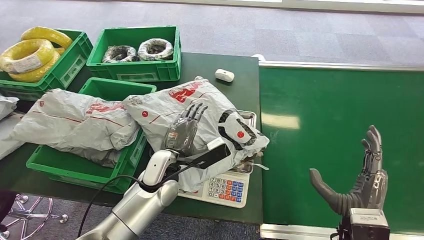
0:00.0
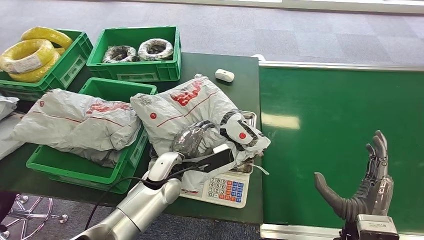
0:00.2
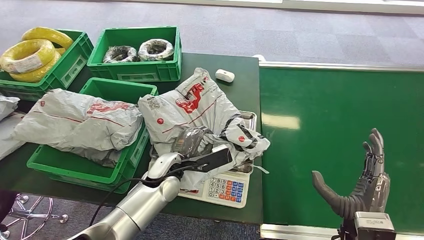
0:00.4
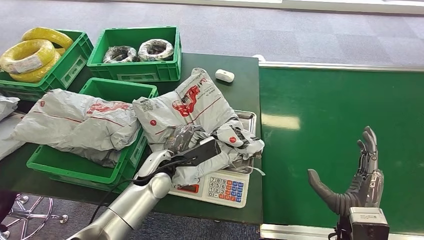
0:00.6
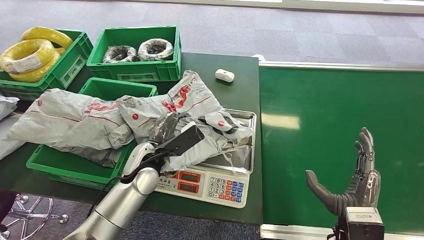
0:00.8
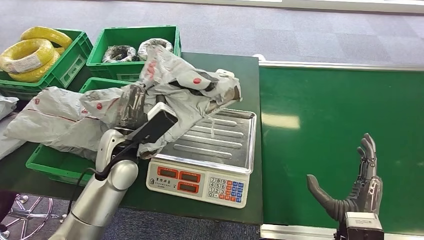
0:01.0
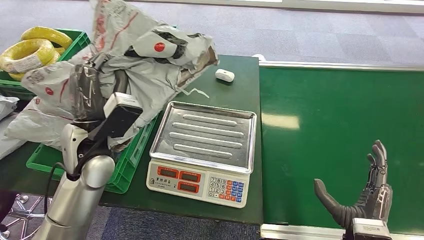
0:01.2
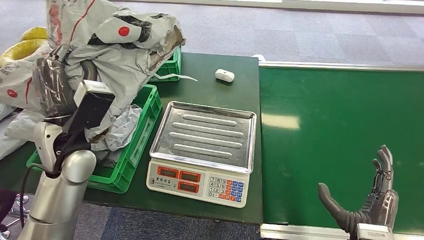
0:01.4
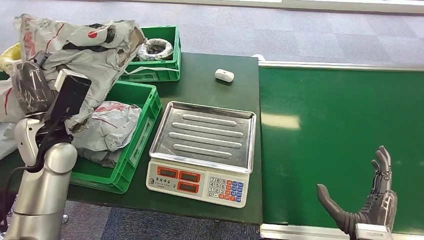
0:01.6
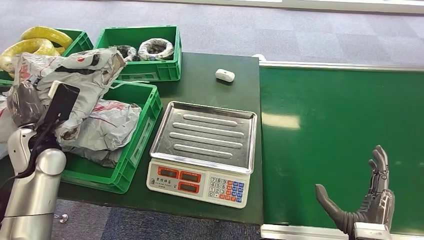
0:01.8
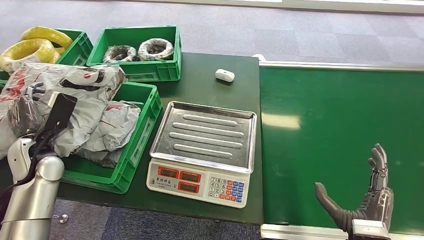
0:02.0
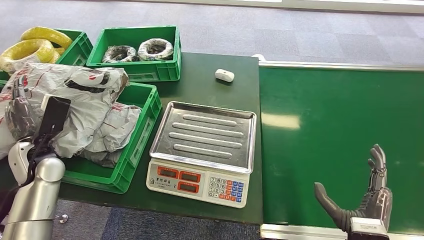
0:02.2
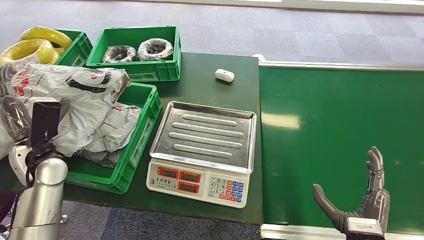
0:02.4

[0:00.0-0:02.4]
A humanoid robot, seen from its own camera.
Step, 0:00.0 to 0:01.0: Pick up the package from the inbound machine.
Step, 0:01.2 to 0:02.4: Place the package into the parcel locker.

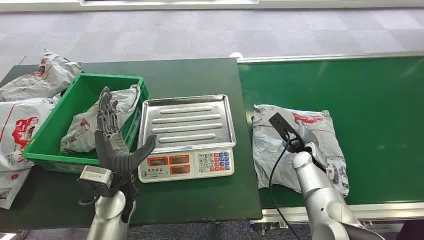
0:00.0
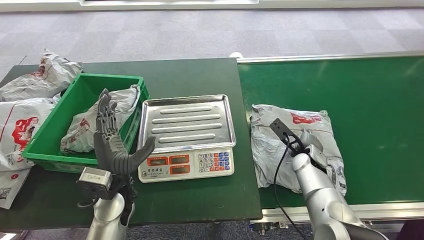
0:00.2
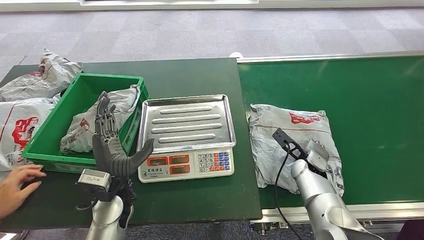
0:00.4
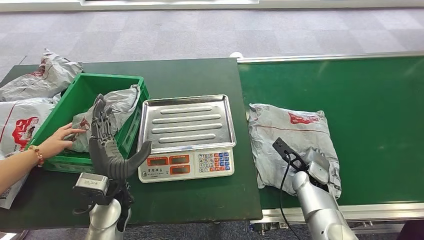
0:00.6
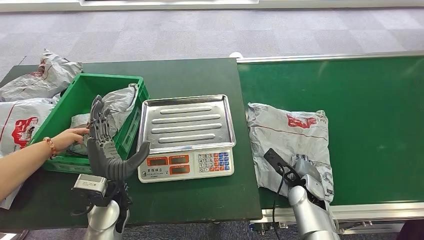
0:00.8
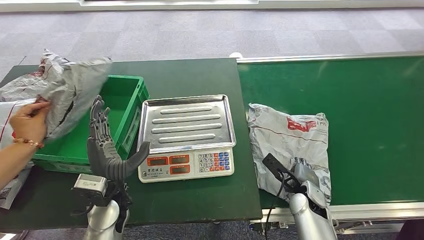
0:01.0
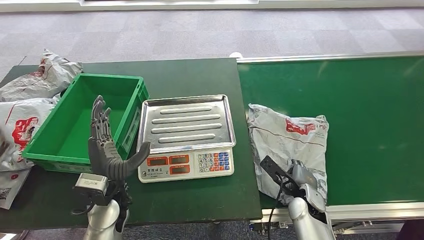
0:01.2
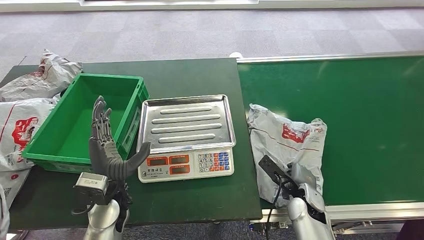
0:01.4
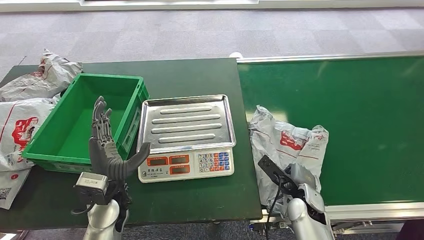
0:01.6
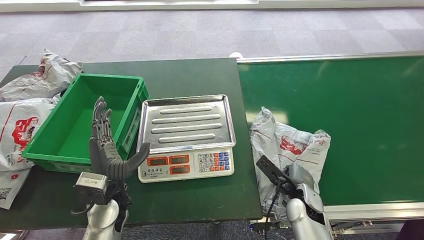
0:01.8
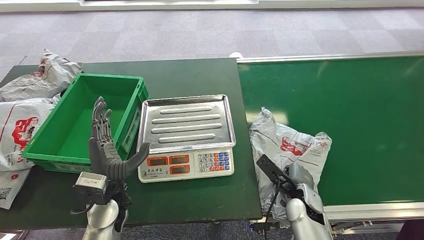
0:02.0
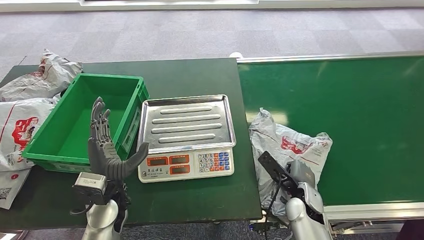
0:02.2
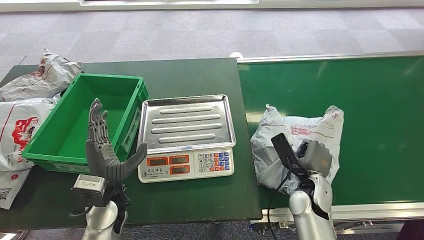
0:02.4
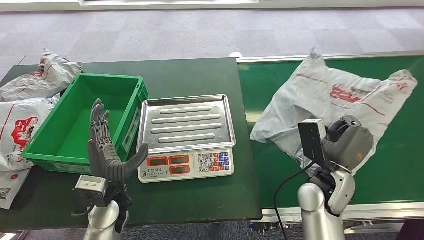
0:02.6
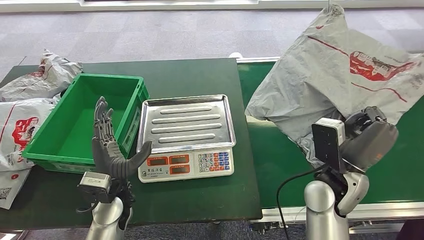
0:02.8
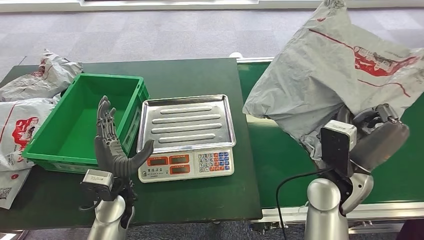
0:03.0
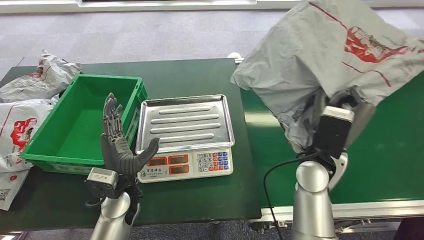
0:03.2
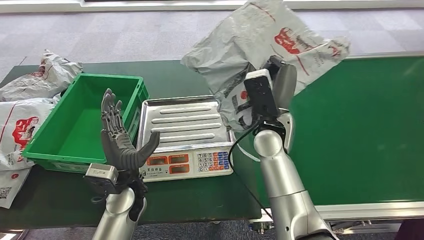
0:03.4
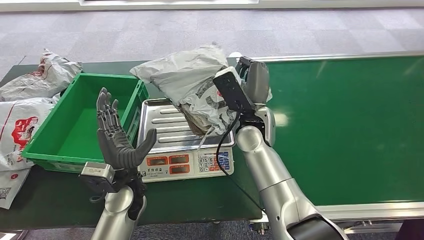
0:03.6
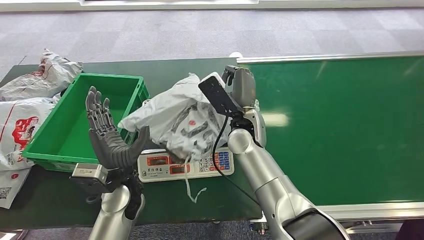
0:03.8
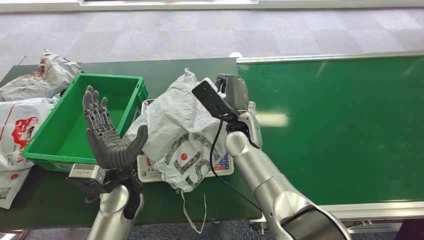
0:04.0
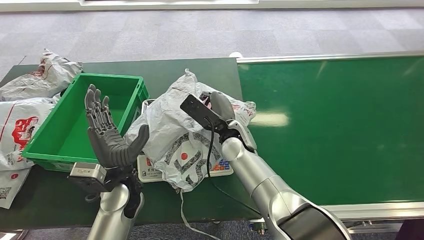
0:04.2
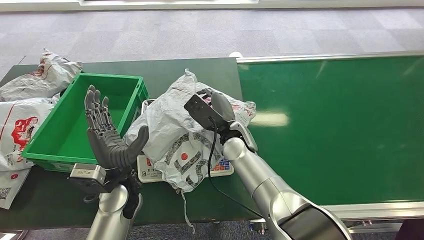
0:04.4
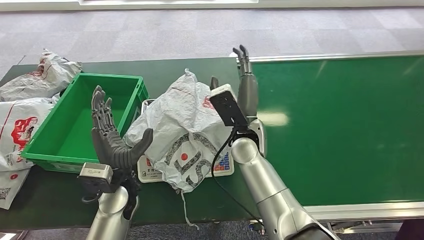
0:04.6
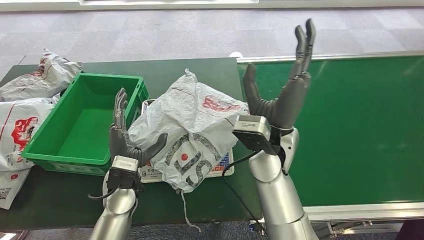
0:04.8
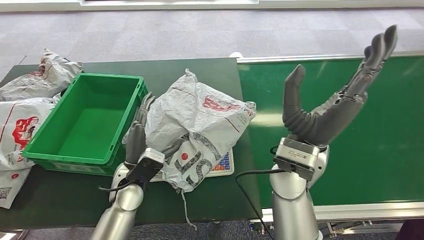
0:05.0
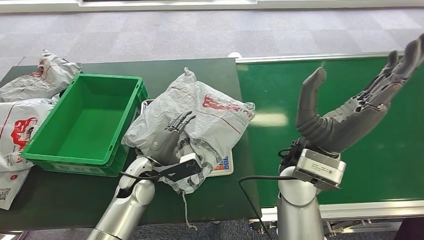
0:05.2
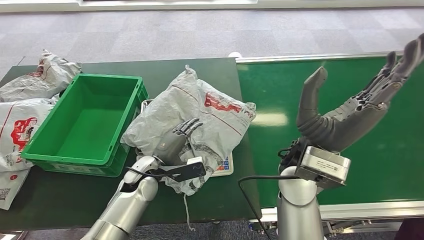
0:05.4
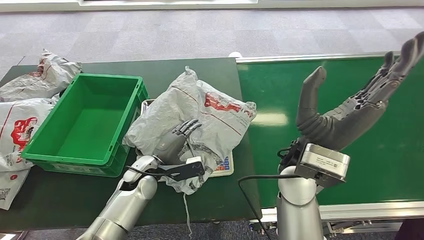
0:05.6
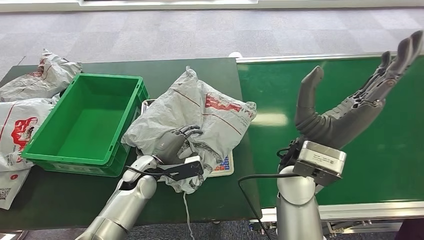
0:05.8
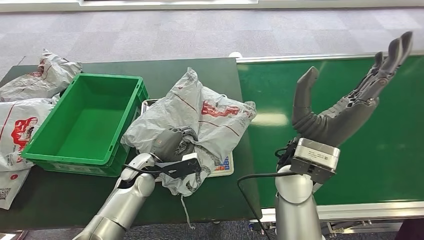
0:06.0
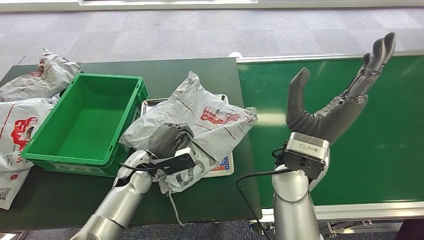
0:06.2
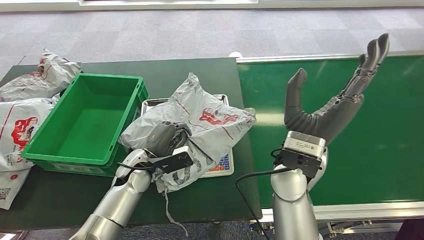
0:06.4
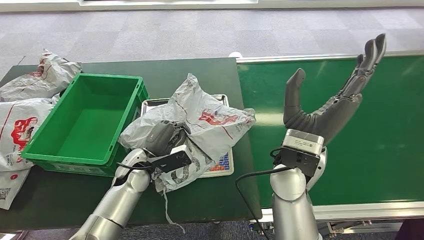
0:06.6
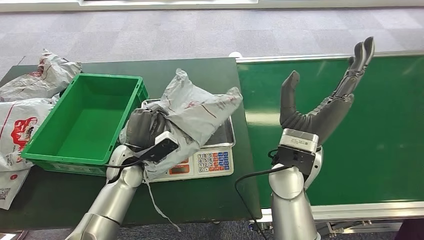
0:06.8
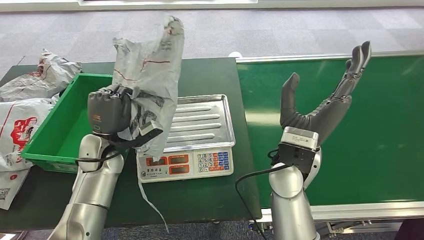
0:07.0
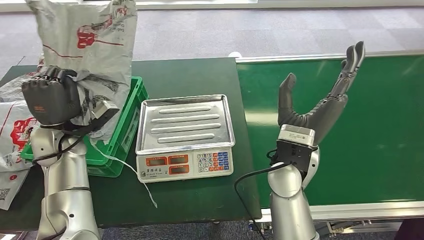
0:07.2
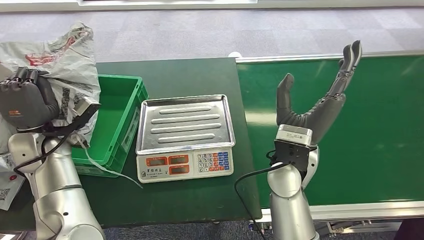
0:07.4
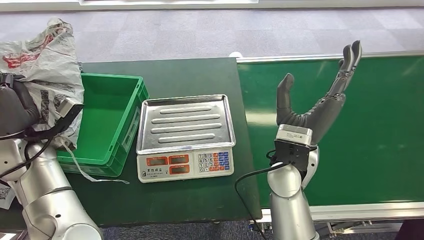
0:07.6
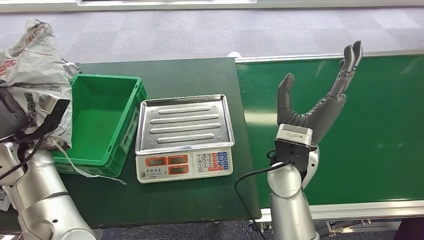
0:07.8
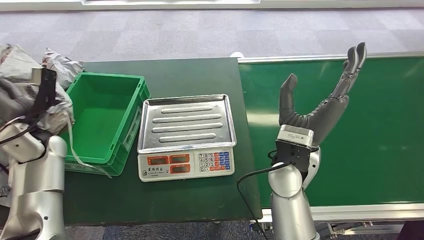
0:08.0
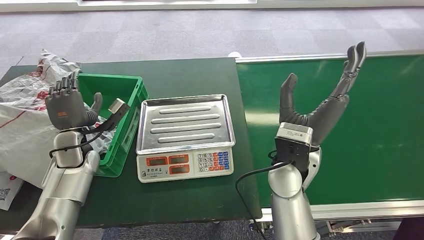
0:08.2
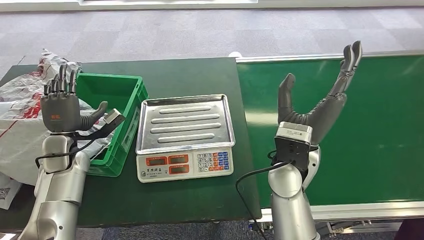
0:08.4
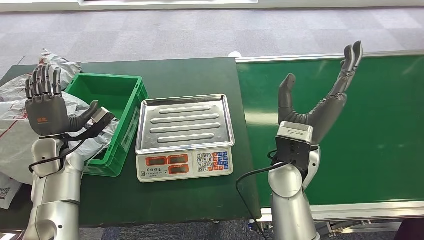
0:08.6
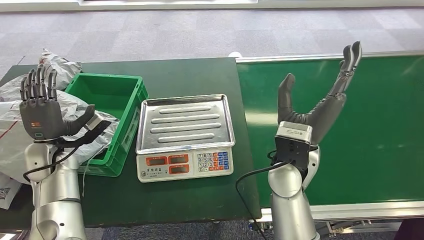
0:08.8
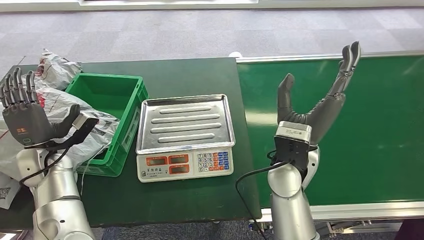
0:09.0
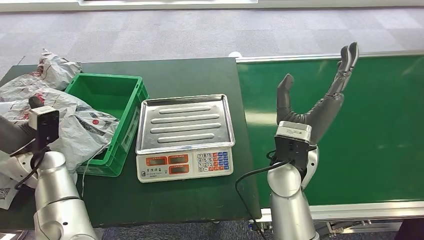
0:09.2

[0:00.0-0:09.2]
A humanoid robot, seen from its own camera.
Step, 0:00.0 to 0:02.6: Pick up the package from the conveyor belt.
Step, 0:02.8 to 0:05.0: Place the package onto the inbound machine.
Step, 0:05.2 to 0:07.6: Pick up the package from the inbound machine.
Step, 0:08.0 to 0:09.2: Place the package into the parcel locker.
0:04.6 to 0:06.2: The right hand is displaced to the right, backward and upward by some 15 cm. Meanwhile the left hand travels forward by approximately 5 cm.
0:07.6 to 0:09.2: The left hand moves about 5 cm to the right and comes back.

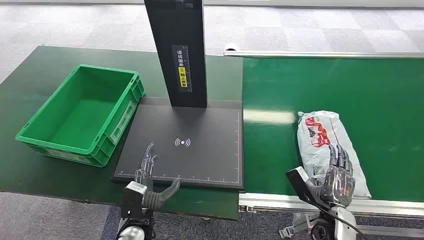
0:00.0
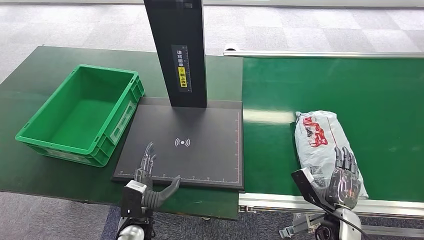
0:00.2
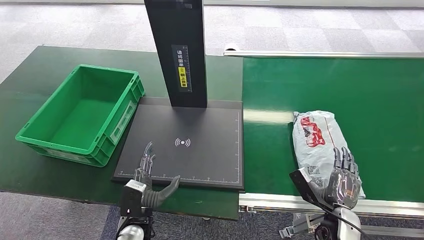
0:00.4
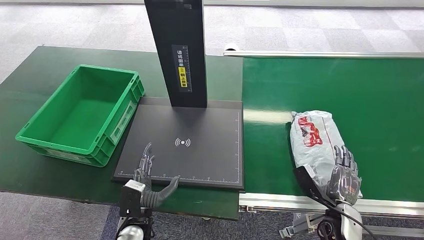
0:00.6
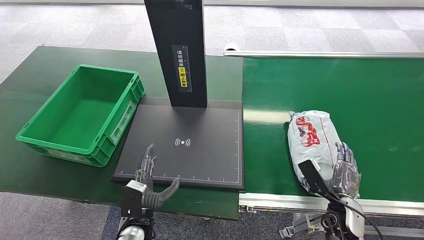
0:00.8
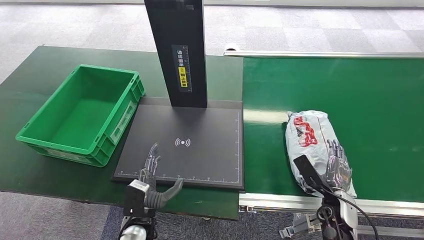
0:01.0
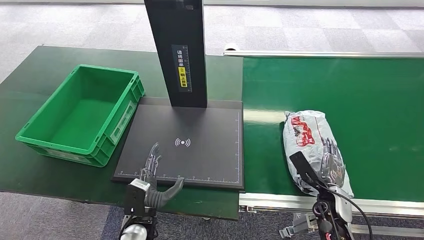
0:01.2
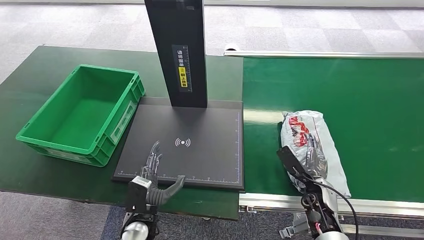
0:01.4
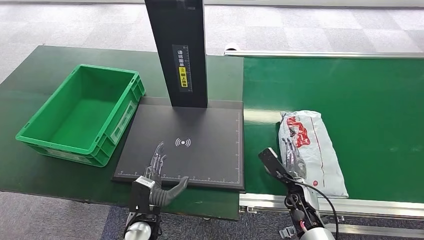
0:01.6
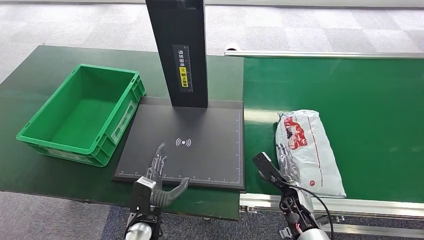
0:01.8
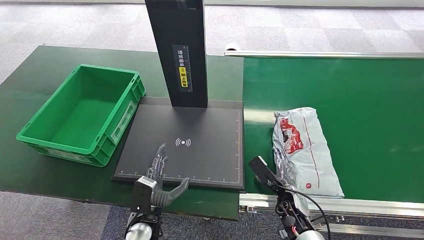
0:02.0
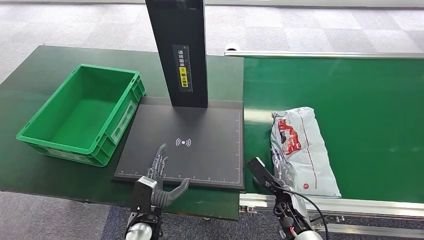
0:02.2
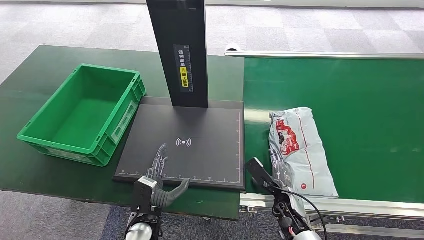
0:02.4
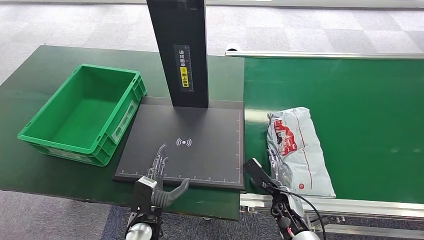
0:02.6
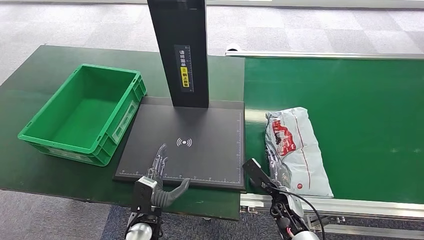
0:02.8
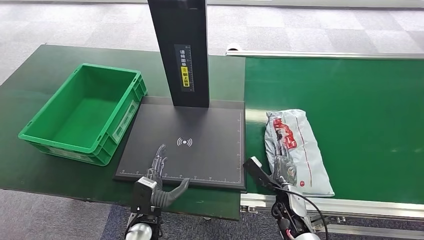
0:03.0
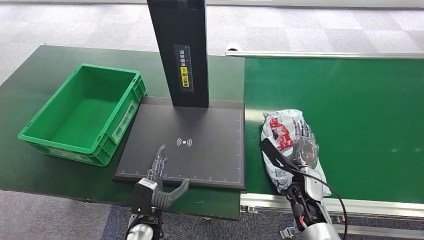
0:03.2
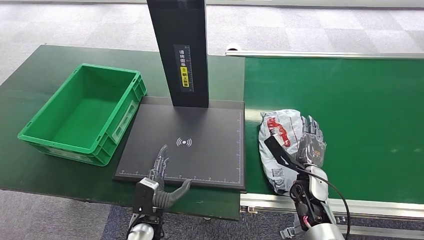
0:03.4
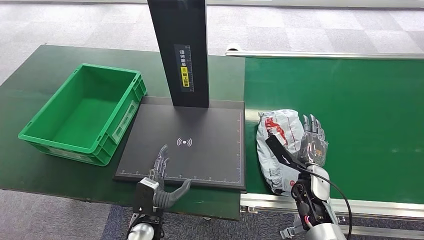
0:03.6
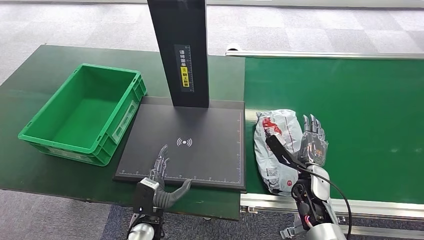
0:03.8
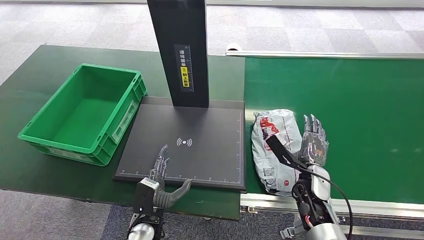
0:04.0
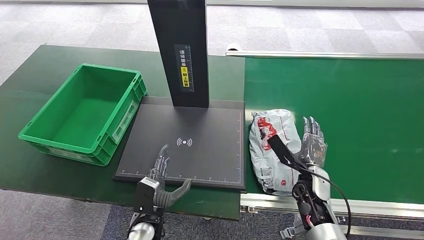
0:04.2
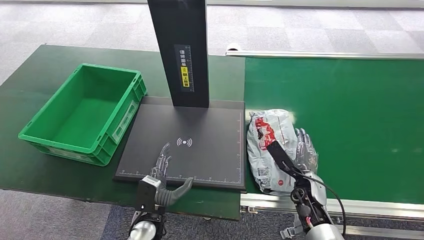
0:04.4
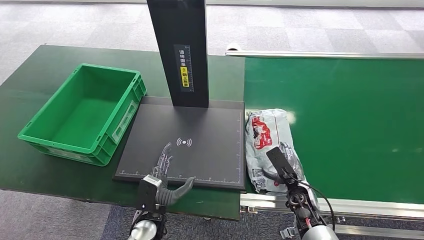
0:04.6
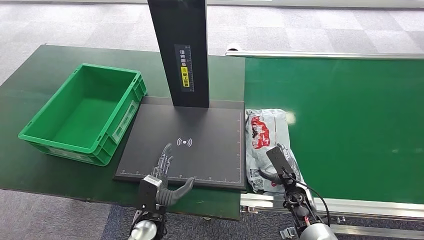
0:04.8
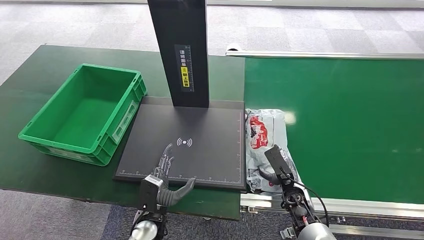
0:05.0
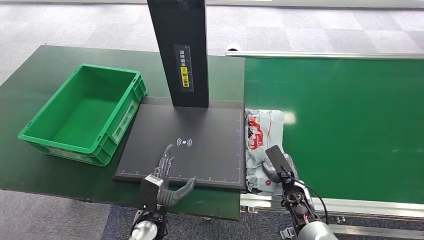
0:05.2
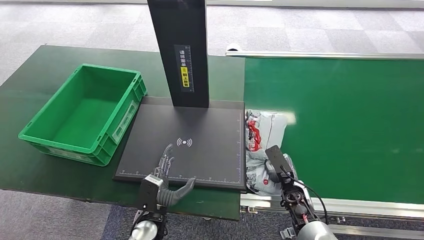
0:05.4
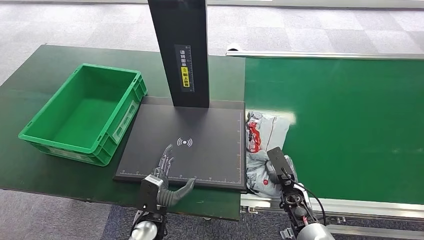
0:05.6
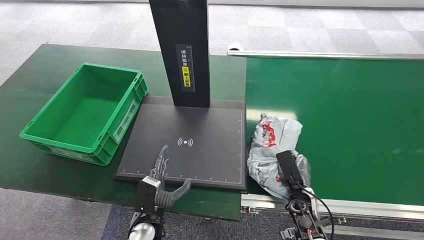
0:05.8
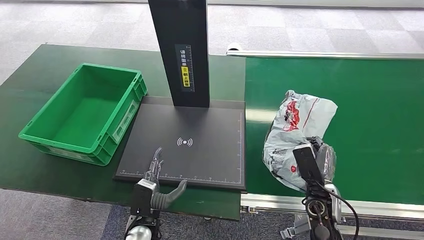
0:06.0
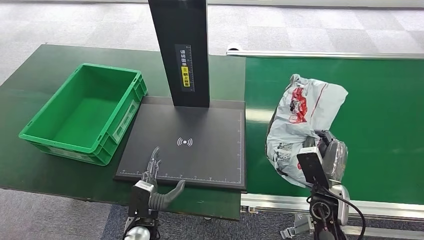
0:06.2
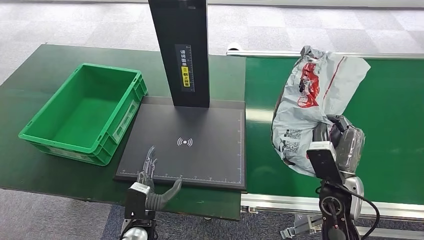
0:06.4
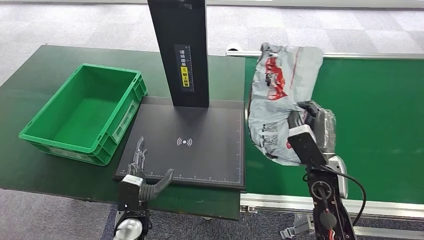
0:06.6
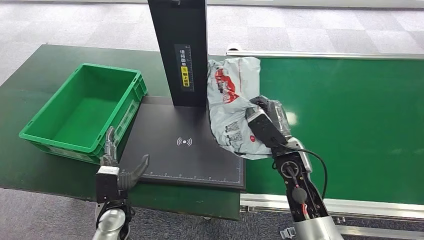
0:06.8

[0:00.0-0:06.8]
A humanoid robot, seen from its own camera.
Step, 0:00.0 to 0:06.8: Pick up the package from the conveyor belt.
0:01.4 to 0:02.8: The right hand is displaced to the left by about 10 cm.
0:02.8 to 0:04.0: The right hand moves upward, about 10 cm.
0:04.0 to 0:05.4: The right hand is displaced downward by about 5 cm.
0:05.4 to 0:06.8: The right hand moves upward, some 15 cm; the left hand goes roughly 10 cm to the left.
